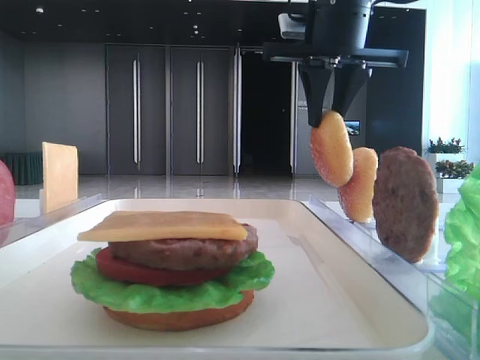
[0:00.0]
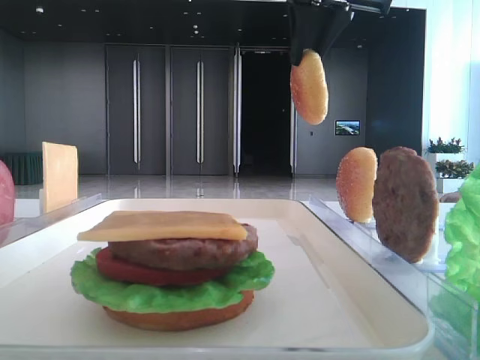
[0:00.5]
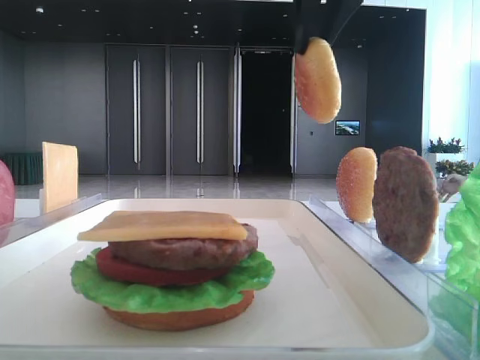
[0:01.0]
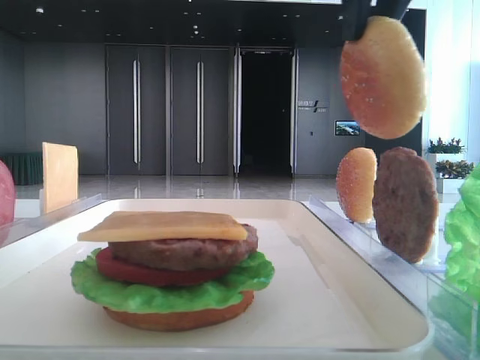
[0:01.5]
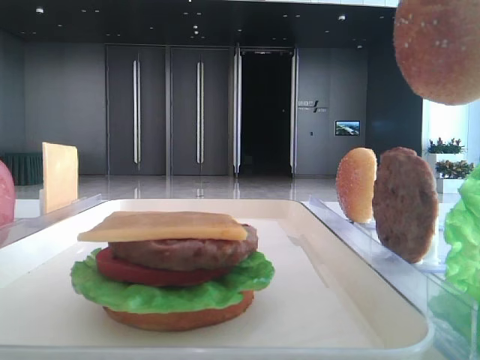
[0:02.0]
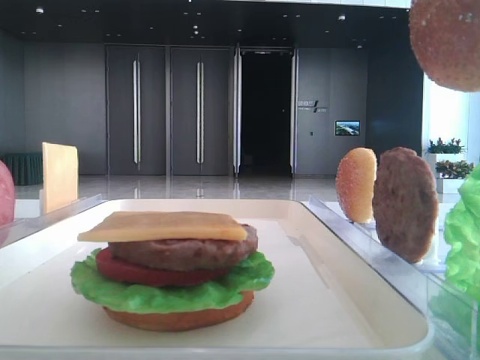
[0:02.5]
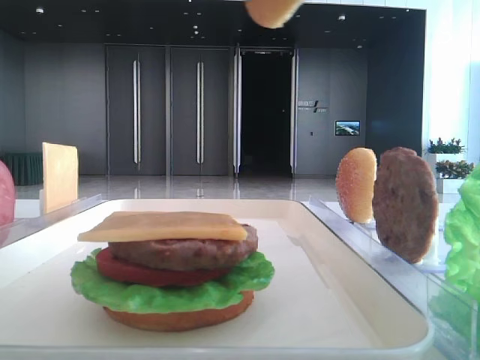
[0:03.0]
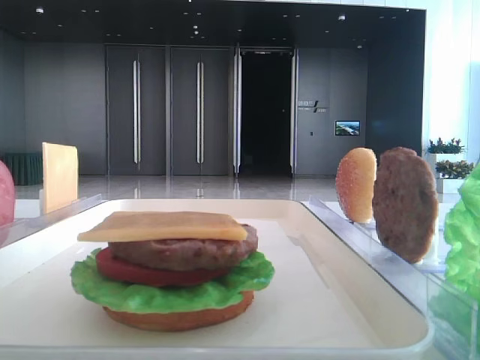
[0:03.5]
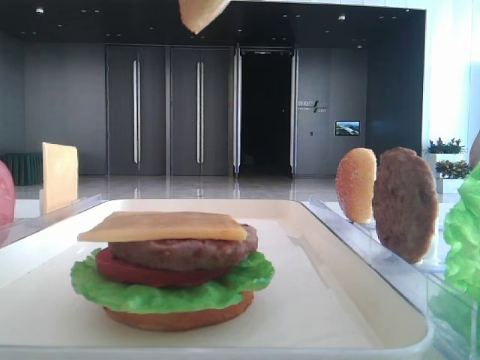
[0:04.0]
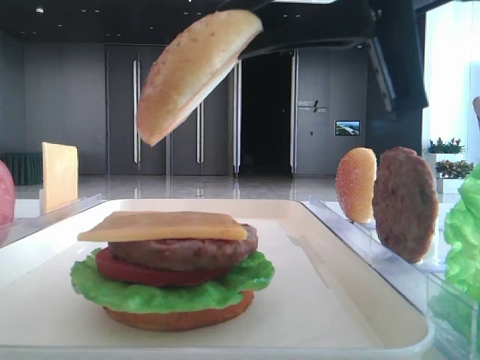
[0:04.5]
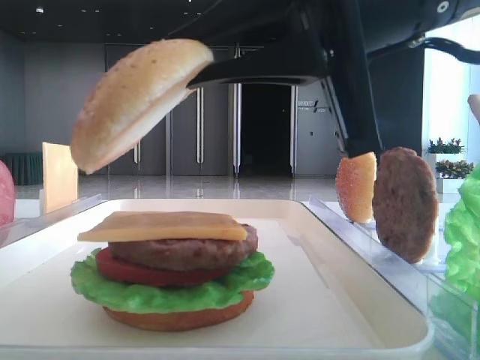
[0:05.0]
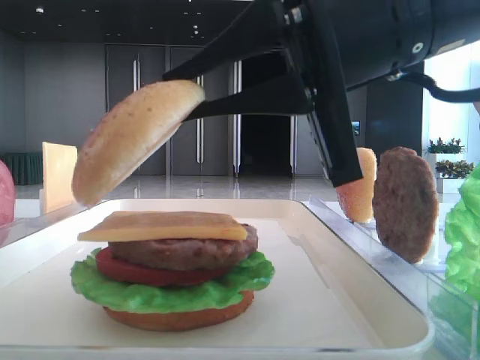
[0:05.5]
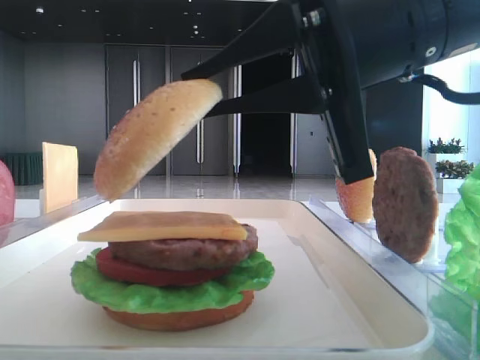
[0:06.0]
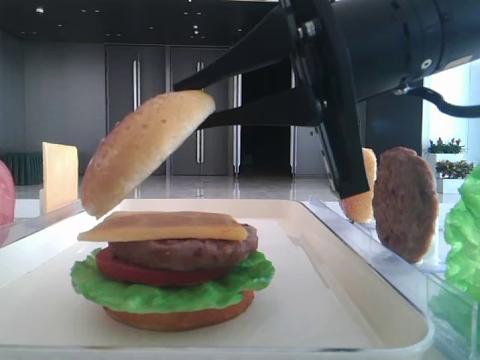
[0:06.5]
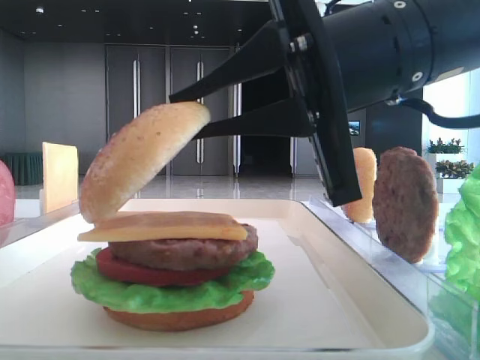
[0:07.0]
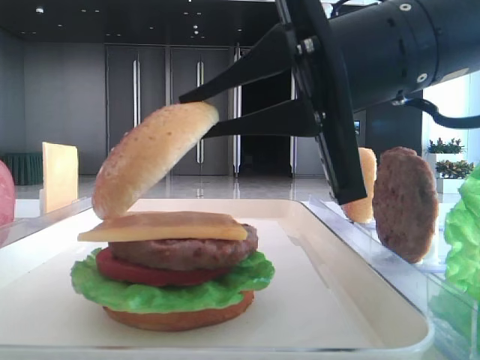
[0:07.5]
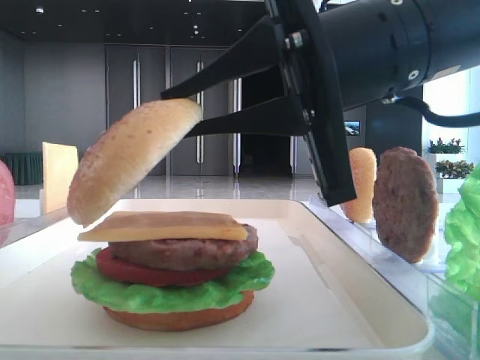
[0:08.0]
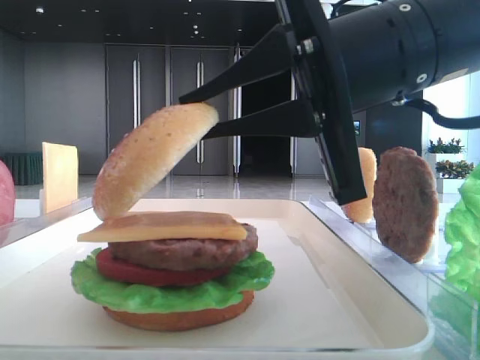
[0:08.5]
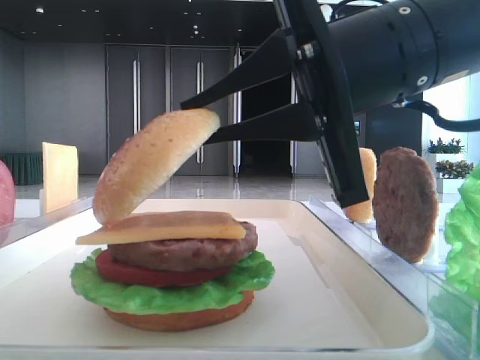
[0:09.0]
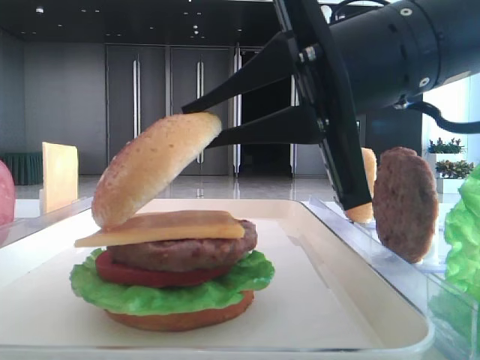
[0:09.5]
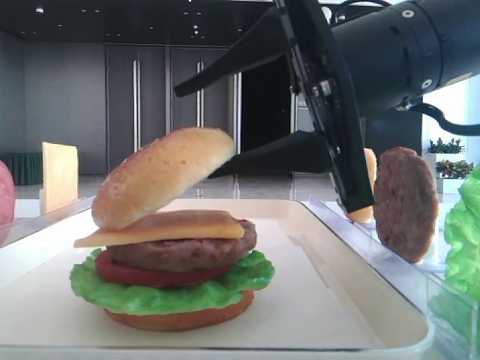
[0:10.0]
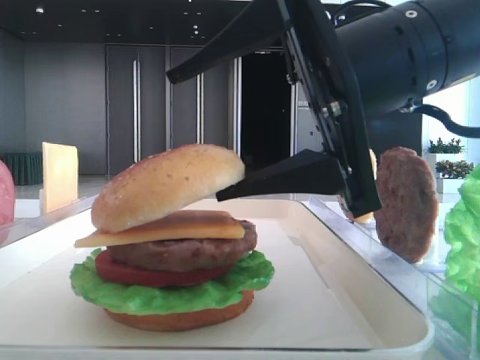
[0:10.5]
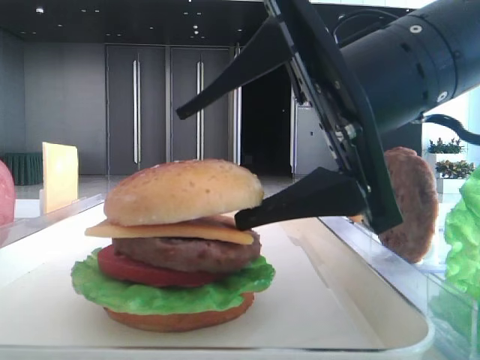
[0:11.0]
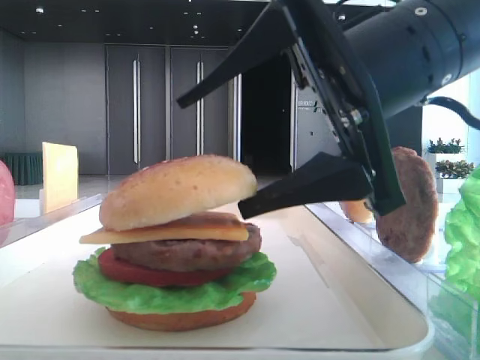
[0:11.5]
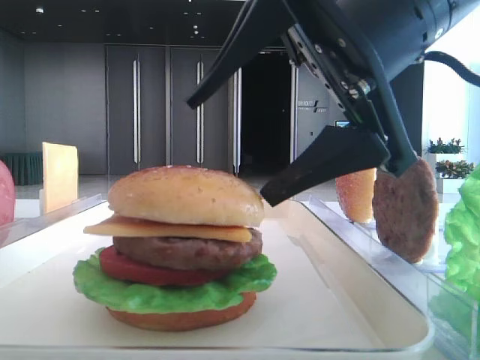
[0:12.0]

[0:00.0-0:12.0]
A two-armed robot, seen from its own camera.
Step, 0:00.0 to 0:12.0: Place the top bread slice on the cheese with the right hand.
0:00.0 to 0:02.0: The right gripper shifts roughly 20 cm backward.
0:02.0 to 0:04.0: The right gripper moves downward, roughly 5 cm.
0:04.0 to 0:06.0: The right gripper moves downward and forward, roughly 10 cm.
0:06.0 to 0:08.0: The grippers make only small movements.
0:08.0 to 0:10.0: The right gripper opens.

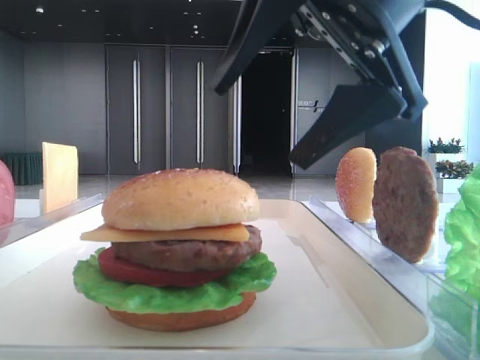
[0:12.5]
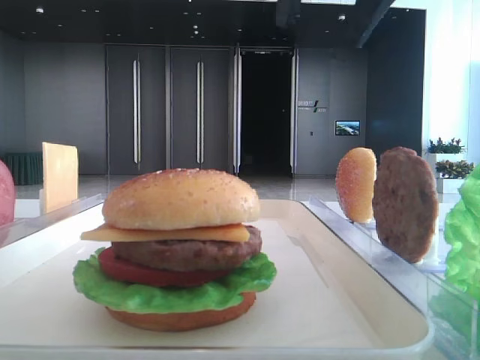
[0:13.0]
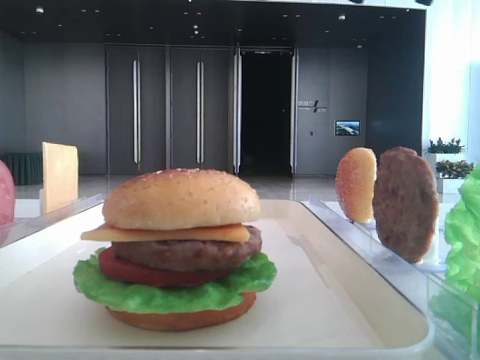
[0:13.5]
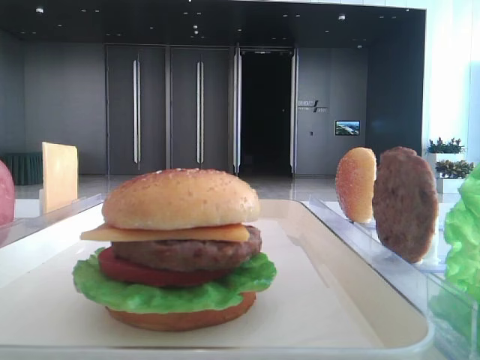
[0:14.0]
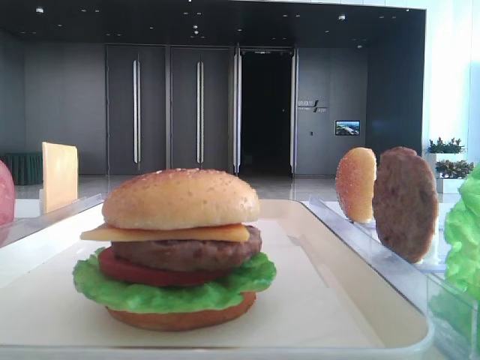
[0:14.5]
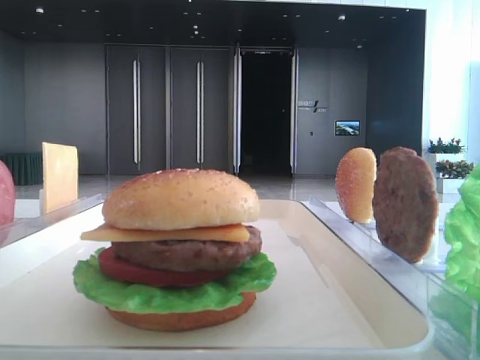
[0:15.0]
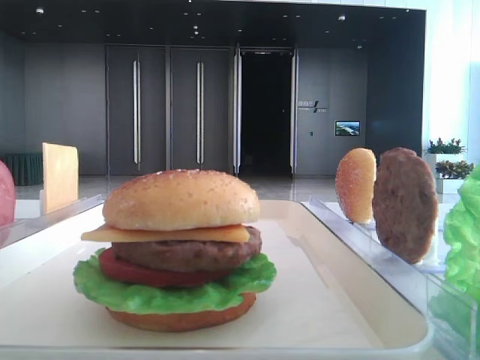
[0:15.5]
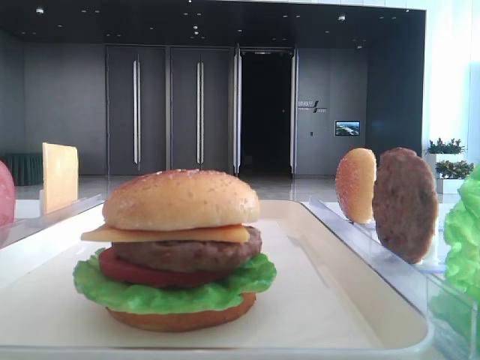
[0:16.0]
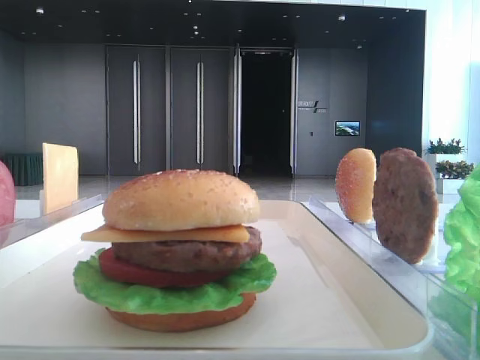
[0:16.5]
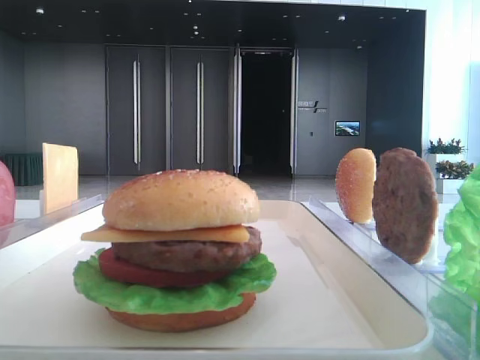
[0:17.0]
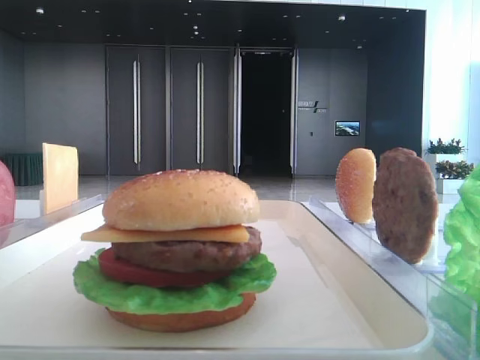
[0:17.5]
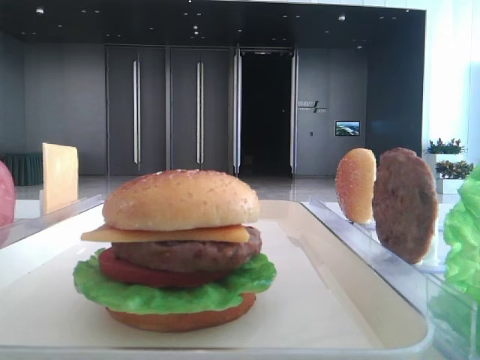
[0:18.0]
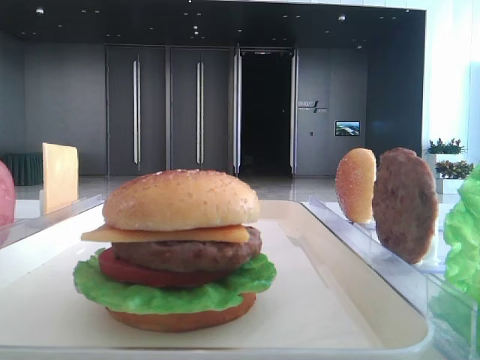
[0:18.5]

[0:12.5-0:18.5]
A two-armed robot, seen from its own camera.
0:12.5 to 0:14.5: The right gripper shifts some 30 cm to the right and upward.
0:14.5 to 0:16.5: The right gripper shifts approximately 35 cm backward.

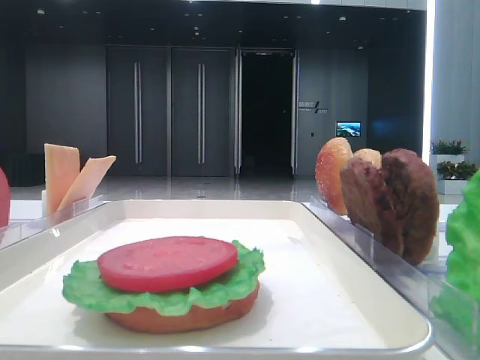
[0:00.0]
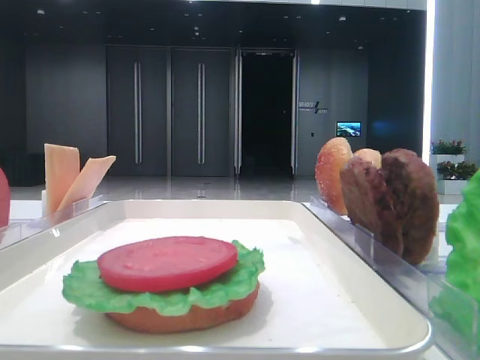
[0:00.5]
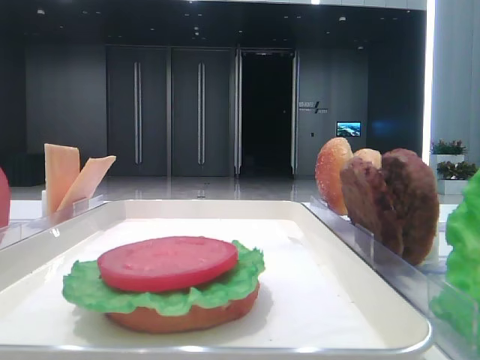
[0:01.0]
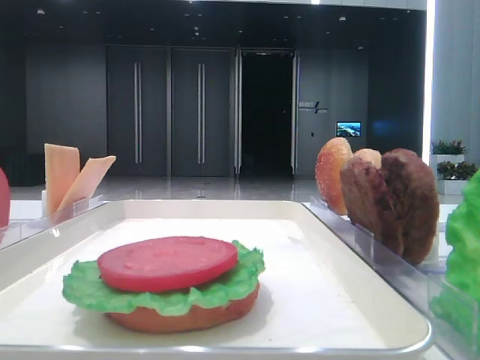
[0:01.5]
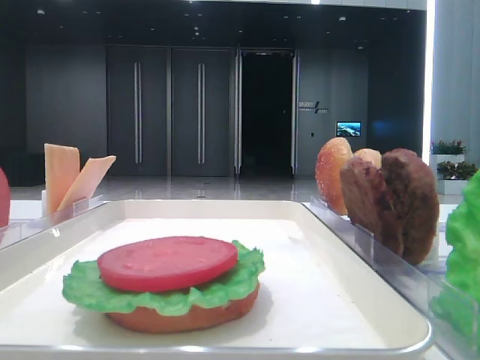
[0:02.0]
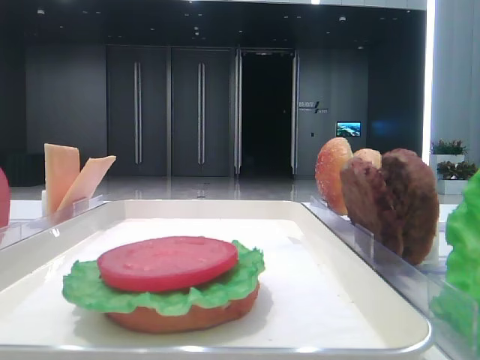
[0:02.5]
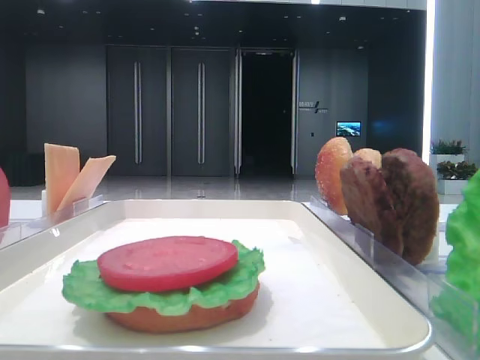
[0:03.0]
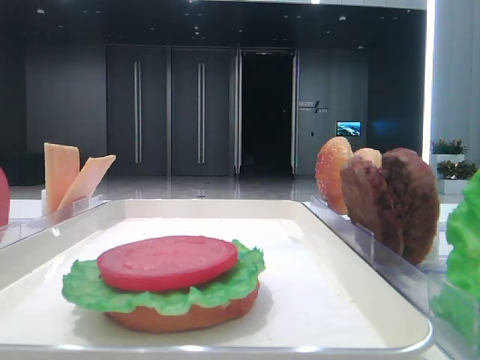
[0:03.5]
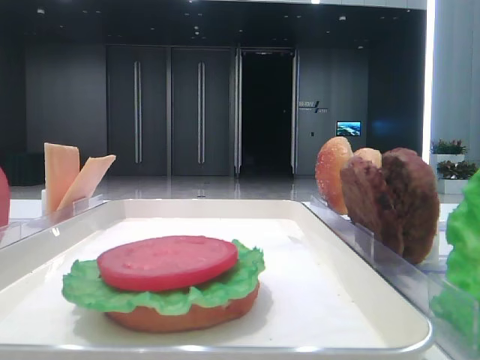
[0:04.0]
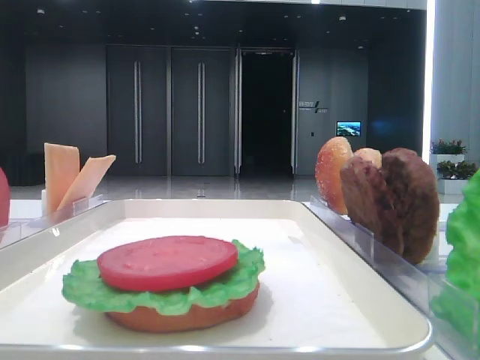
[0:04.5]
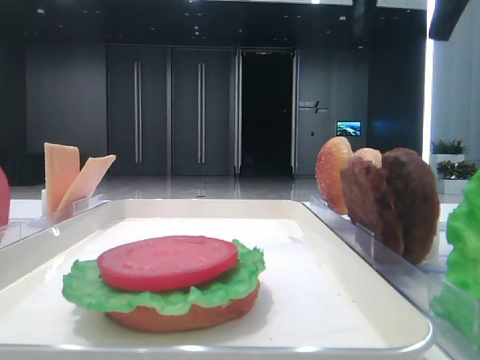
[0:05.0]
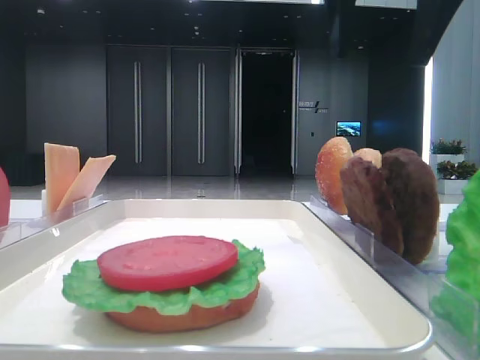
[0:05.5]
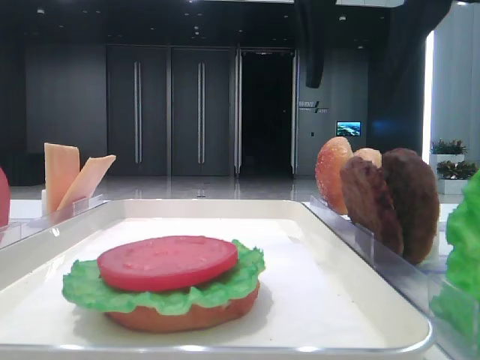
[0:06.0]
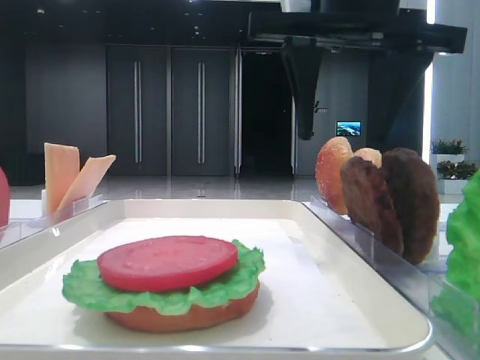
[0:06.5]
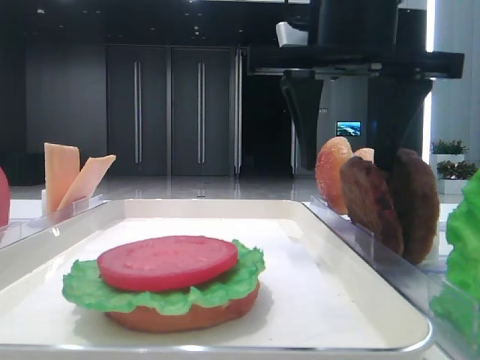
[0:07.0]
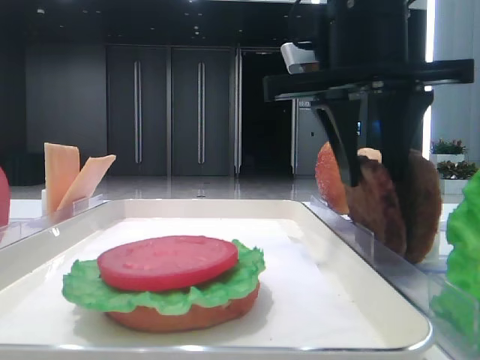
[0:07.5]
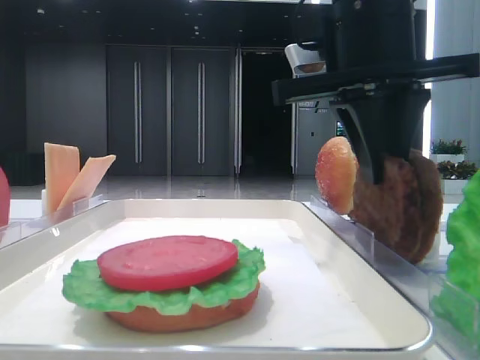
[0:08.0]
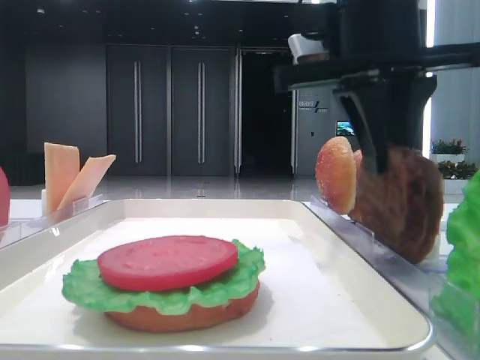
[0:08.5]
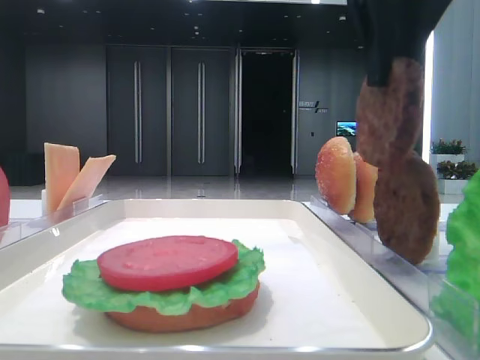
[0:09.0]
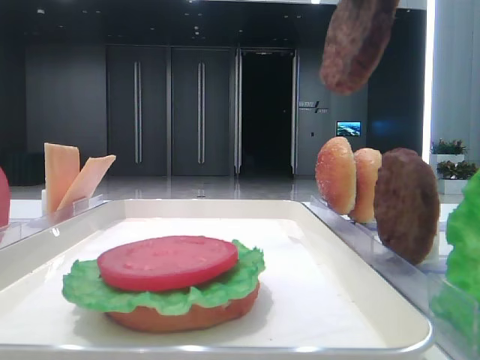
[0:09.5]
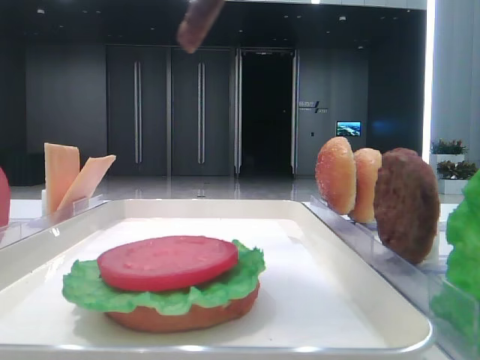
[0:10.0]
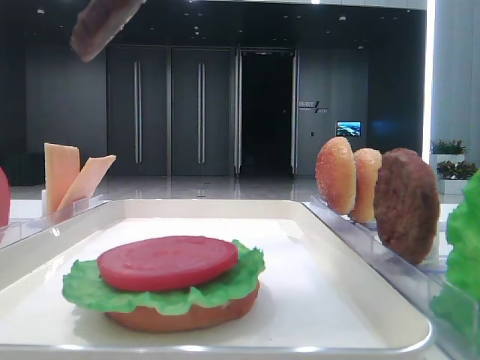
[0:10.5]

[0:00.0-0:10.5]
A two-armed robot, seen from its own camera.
Step, 0:00.0 to 0:07.5: Grab the patty with the right hand.
0:04.0 to 0:06.5: The right gripper is displaced to the left and downward by about 25 cm.
0:06.5 to 0:08.5: The right gripper closes.
0:08.5 to 0:10.5: The right gripper goes some 15 cm backward, upward and to the left.
